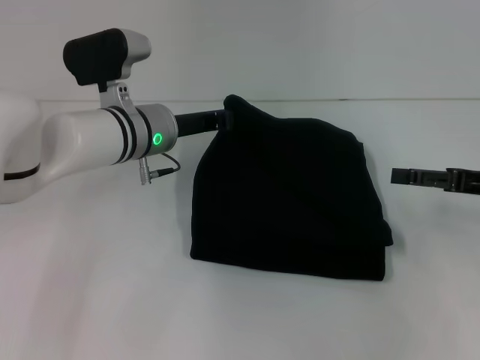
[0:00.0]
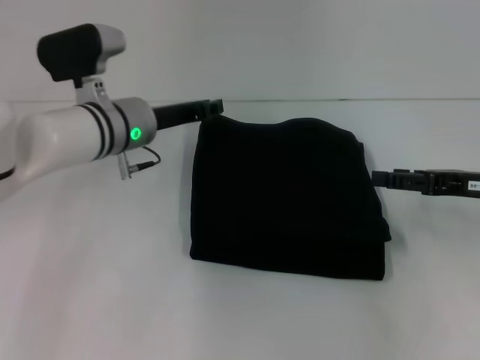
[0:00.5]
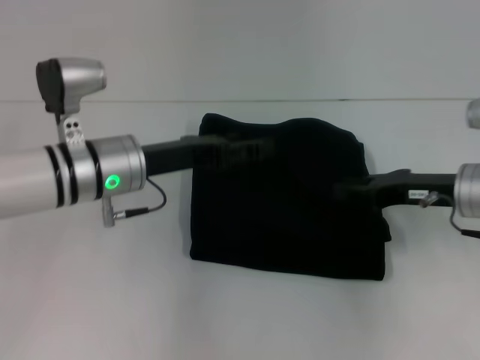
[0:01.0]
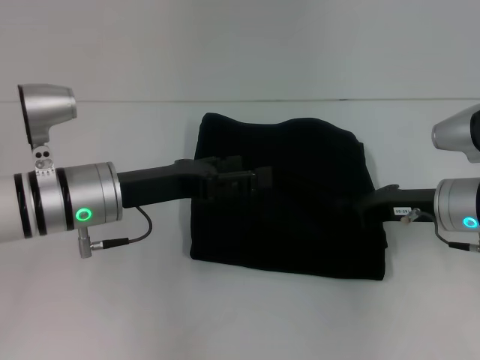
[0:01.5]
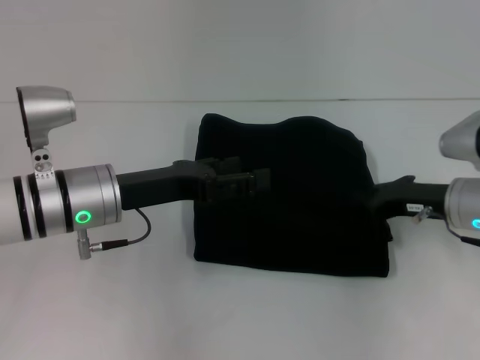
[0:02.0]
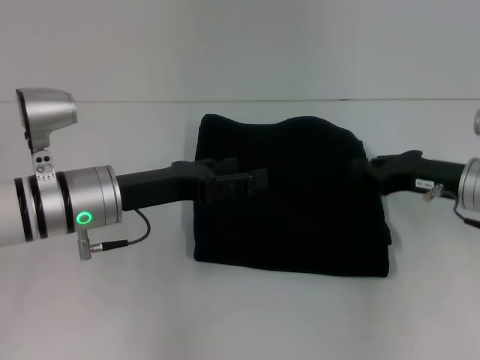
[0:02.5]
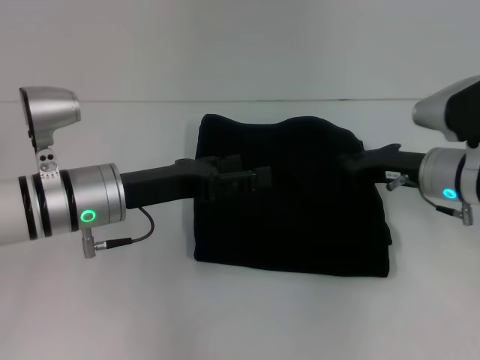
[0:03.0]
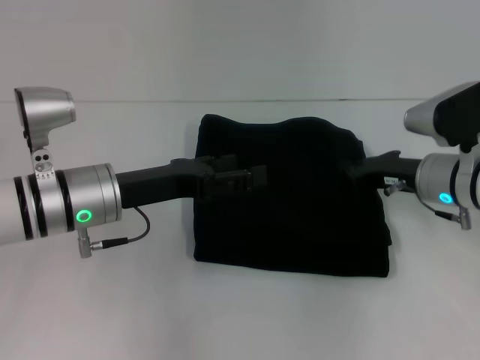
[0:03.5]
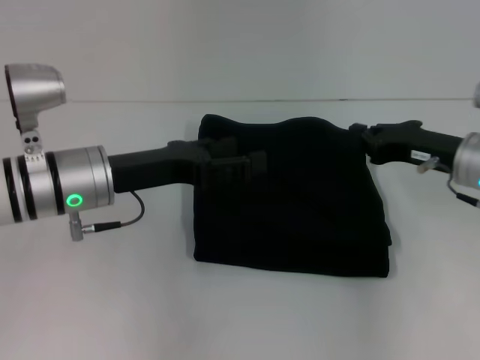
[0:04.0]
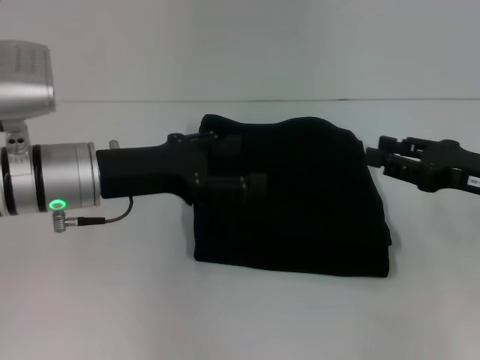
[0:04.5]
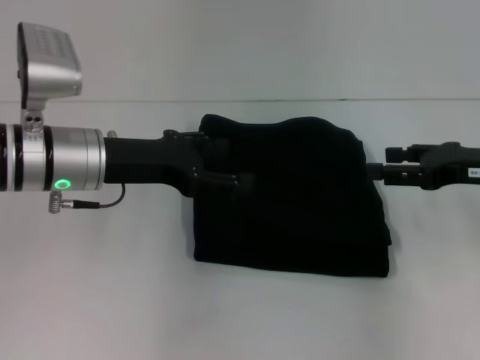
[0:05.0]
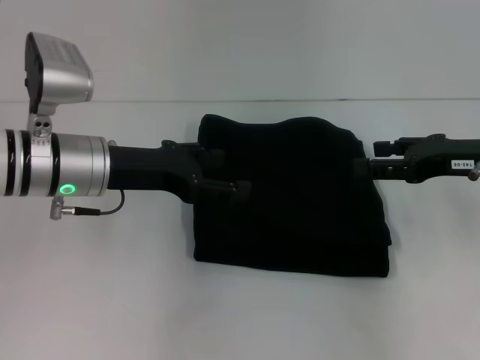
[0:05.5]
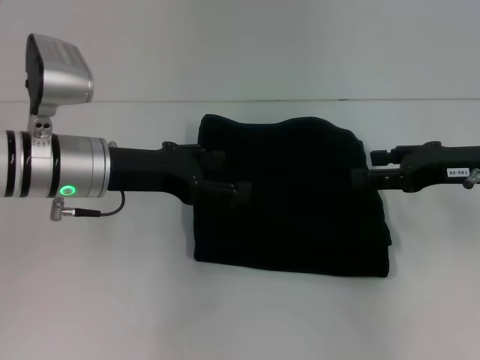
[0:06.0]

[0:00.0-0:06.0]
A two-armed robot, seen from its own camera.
0:00.0 to 0:02.0: The left gripper heads backward and to the left, covering about 10 cm, and opens its fingers; the right gripper travels to the left by some 5 cm, and closes.
0:02.0 to 0:04.0: The grippers move only a little.
0:04.0 to 0:06.0: The right gripper opens its fingers.

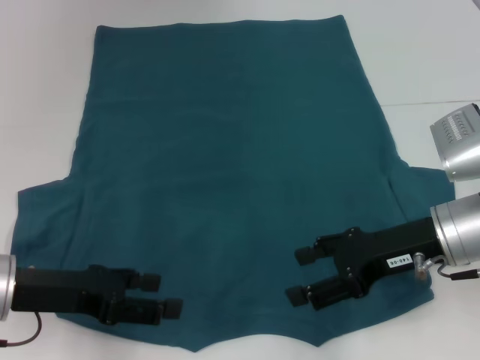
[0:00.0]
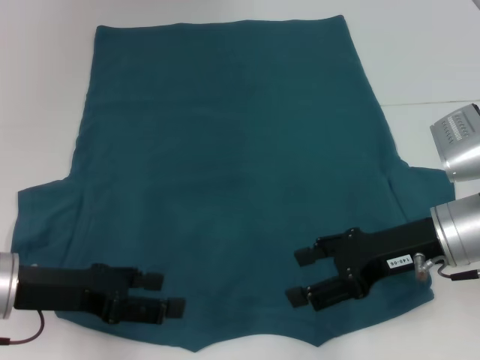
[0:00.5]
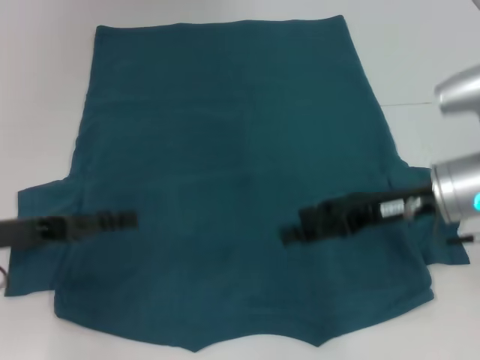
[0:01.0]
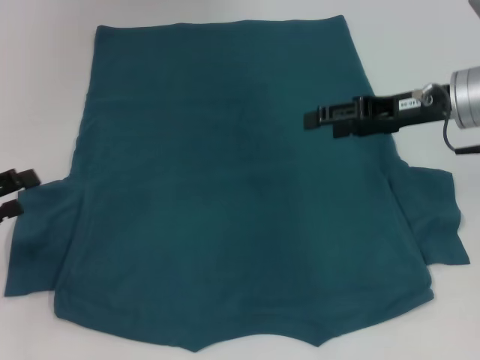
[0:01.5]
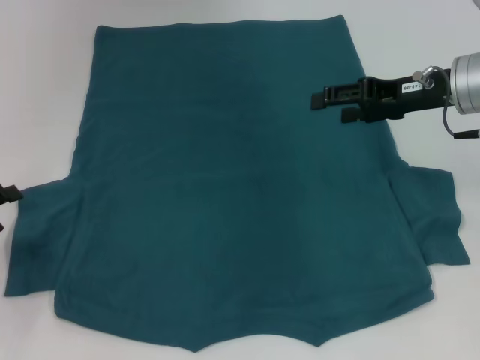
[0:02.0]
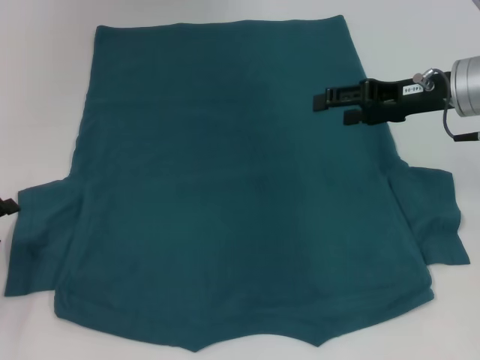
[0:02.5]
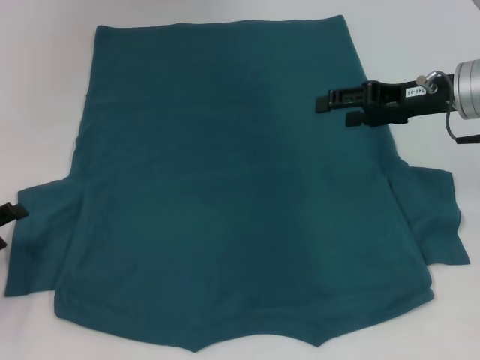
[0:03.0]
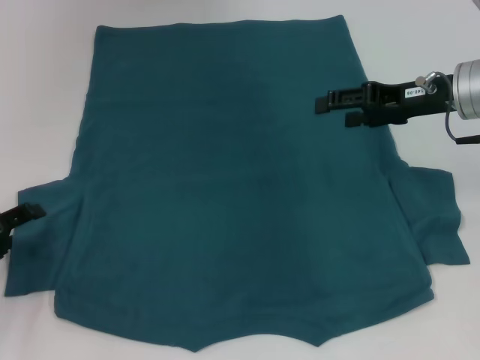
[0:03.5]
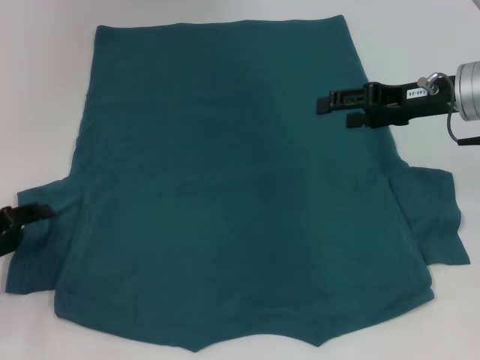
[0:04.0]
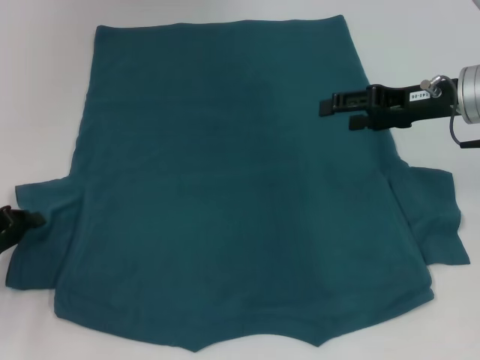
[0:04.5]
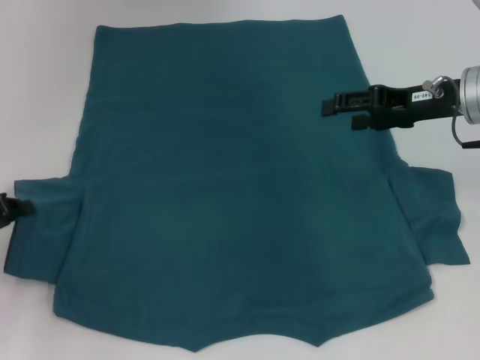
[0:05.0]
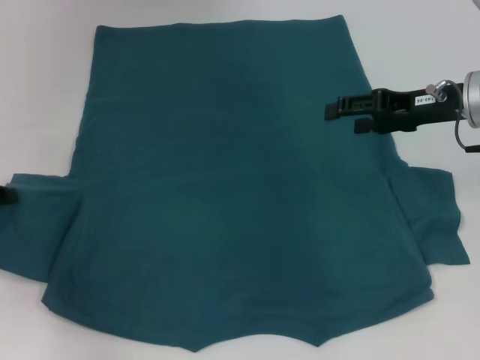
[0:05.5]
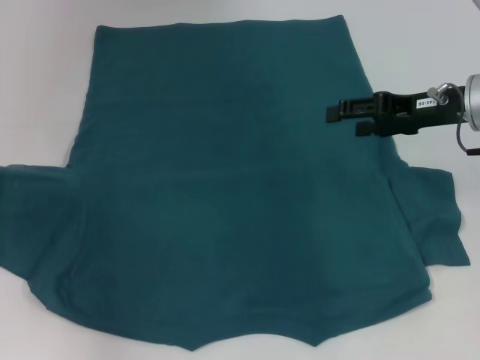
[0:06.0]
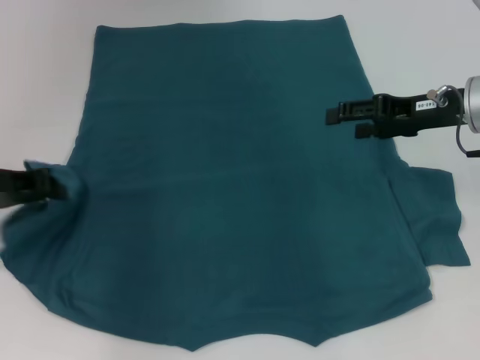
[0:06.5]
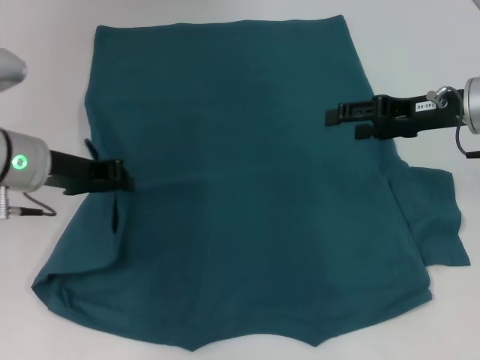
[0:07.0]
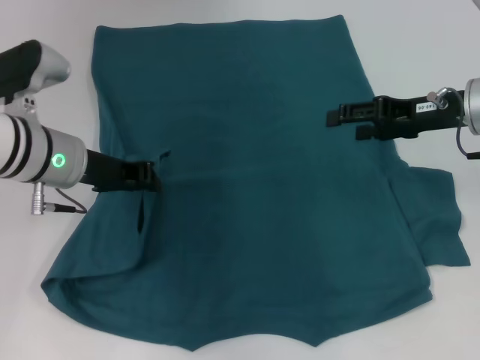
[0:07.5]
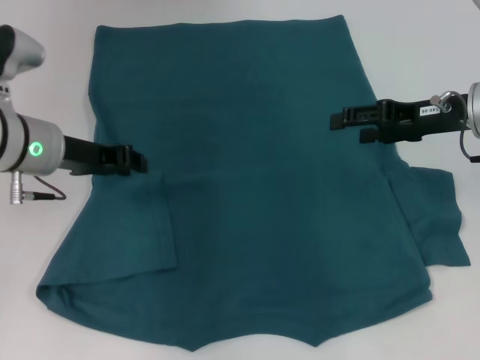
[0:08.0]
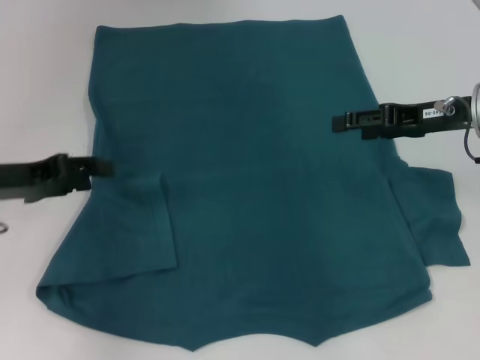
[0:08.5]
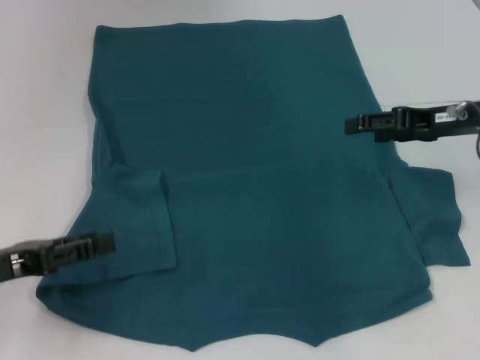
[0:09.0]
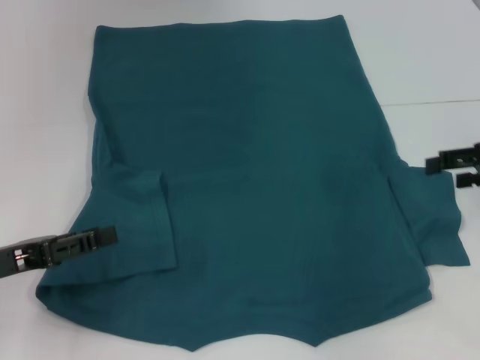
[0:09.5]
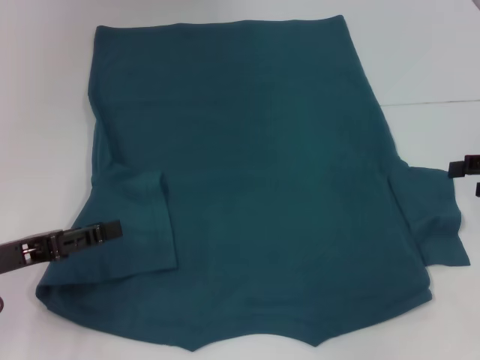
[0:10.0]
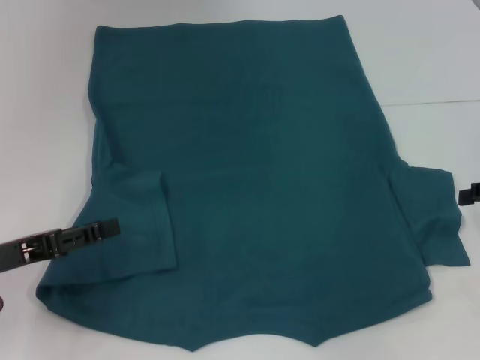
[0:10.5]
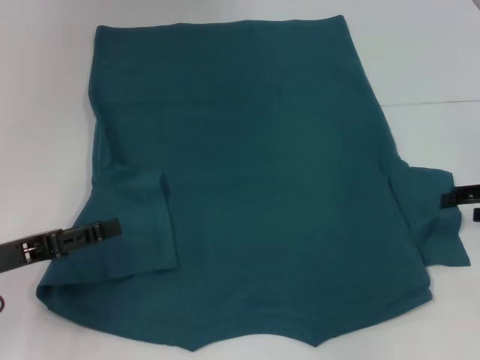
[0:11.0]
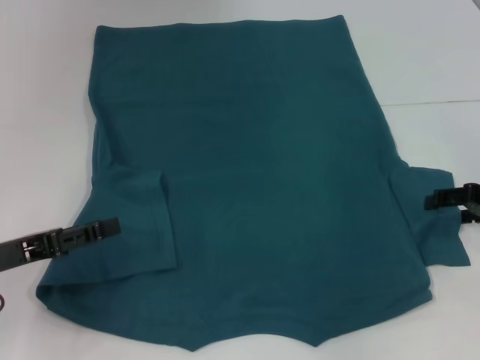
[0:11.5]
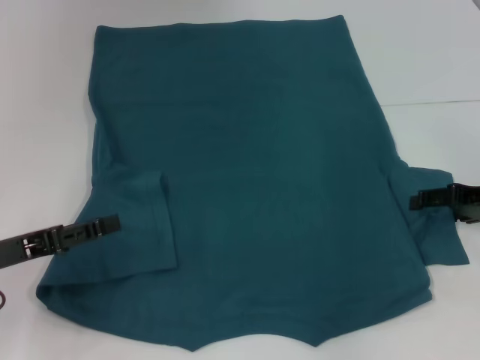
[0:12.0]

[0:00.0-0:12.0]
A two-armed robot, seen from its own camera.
Step, 0:00.0 to 0:08.0: Fold the bottom left sleeve with your left hand.
0:00.0 to 0:02.0: The left gripper travels to the left by some 10 cm, while the right gripper goes some 10 cm forward and upward.
0:02.0 to 0:04.0: The grippers make only small movements.
0:04.0 to 0:06.0: The left gripper shifts some 10 cm upward and forward, and closes up.
0:06.0 to 0:08.0: The left gripper shifts roughly 15 cm to the right.
0:08.0 to 0:10.0: The right gripper moves to the right and backward, approximately 15 cm, while the left gripper heads backward, to the left and downward, covering about 15 cm, and opens up.
0:10.0 to 0:12.0: The right gripper travels downward by about 5 cm.

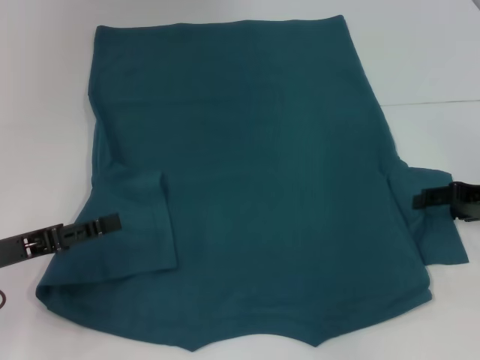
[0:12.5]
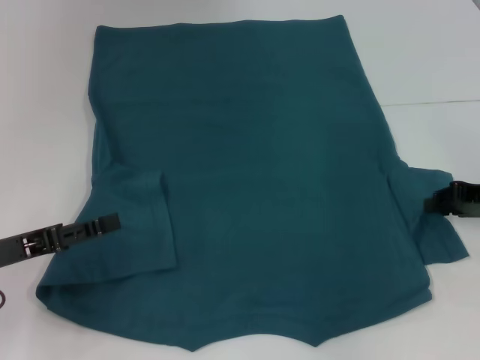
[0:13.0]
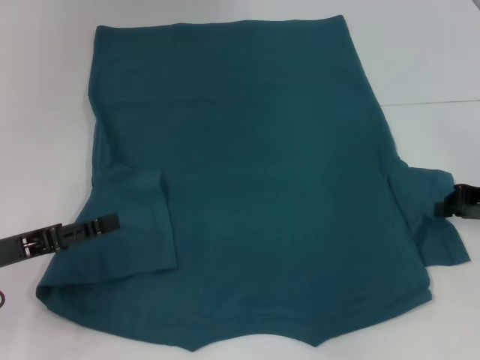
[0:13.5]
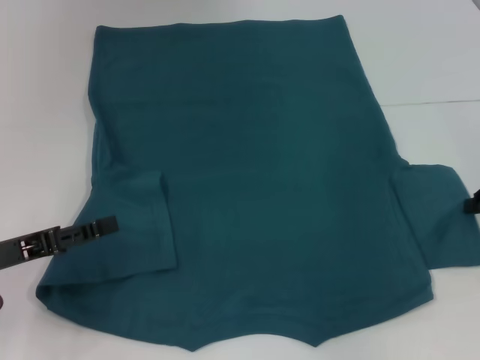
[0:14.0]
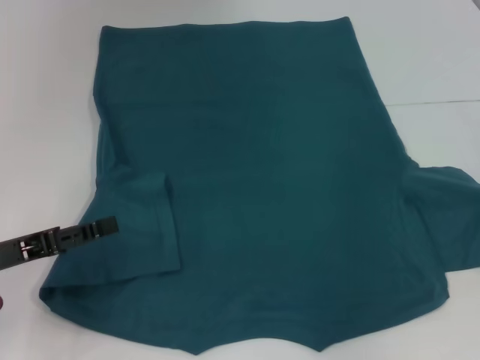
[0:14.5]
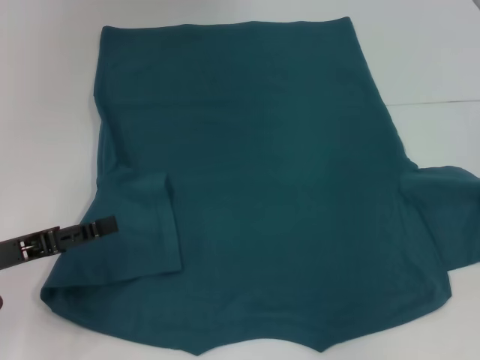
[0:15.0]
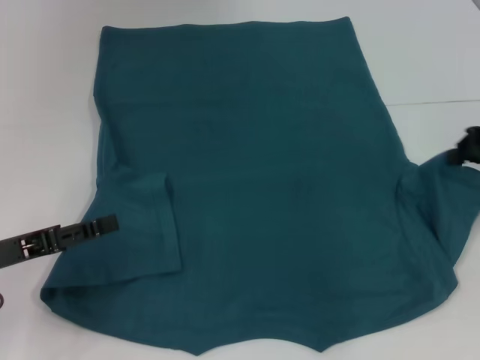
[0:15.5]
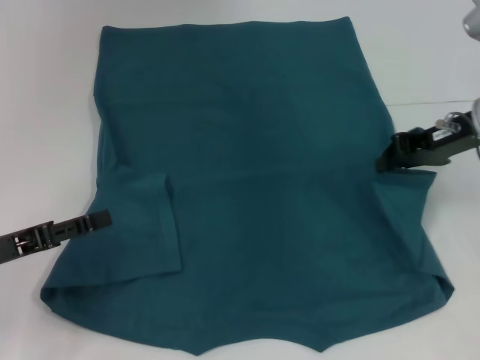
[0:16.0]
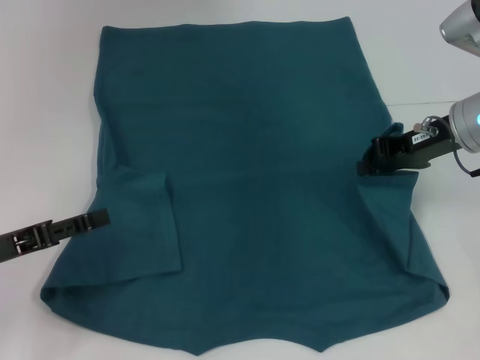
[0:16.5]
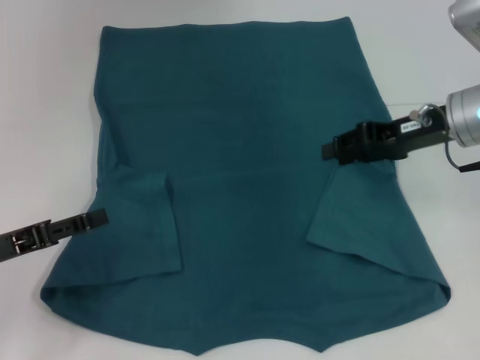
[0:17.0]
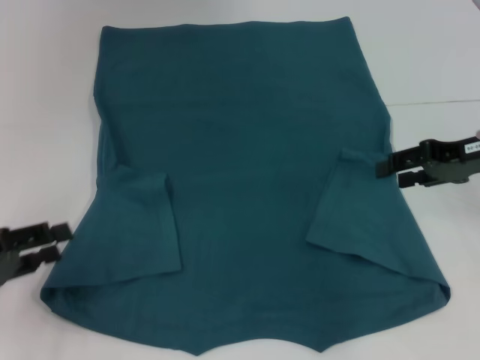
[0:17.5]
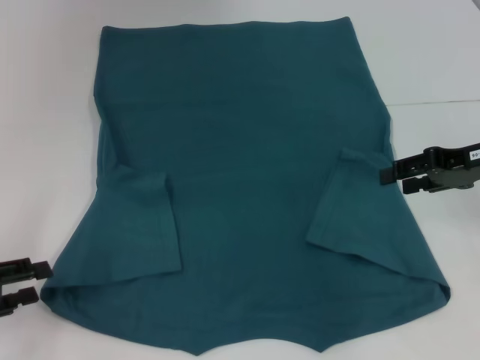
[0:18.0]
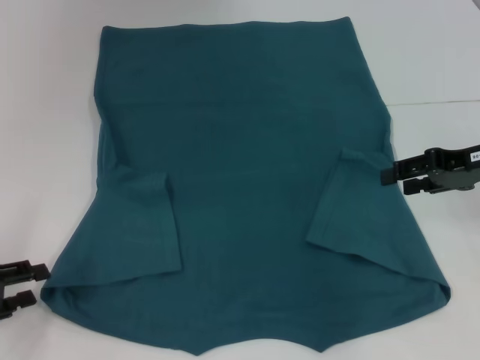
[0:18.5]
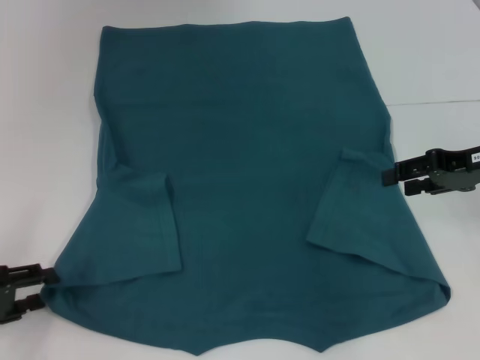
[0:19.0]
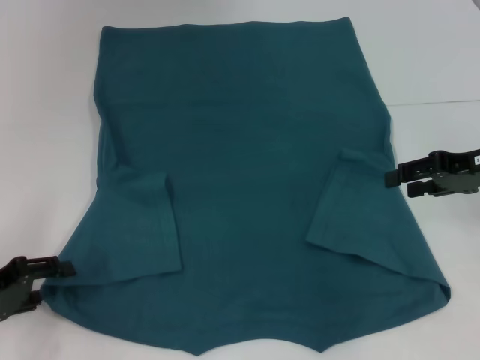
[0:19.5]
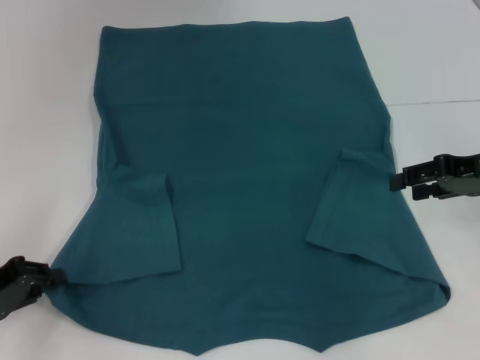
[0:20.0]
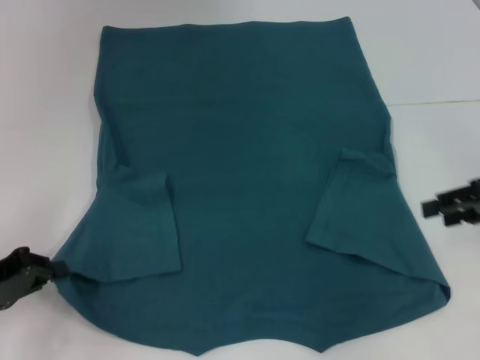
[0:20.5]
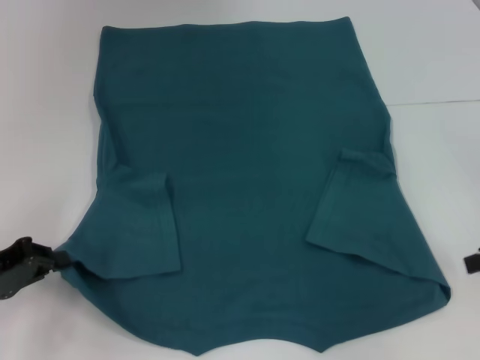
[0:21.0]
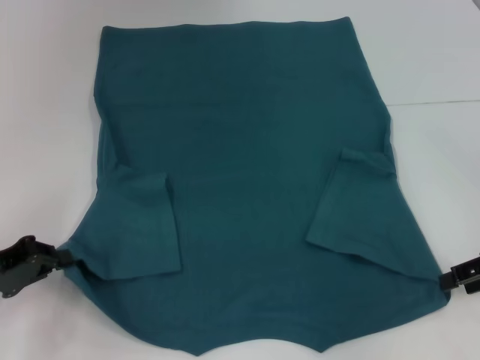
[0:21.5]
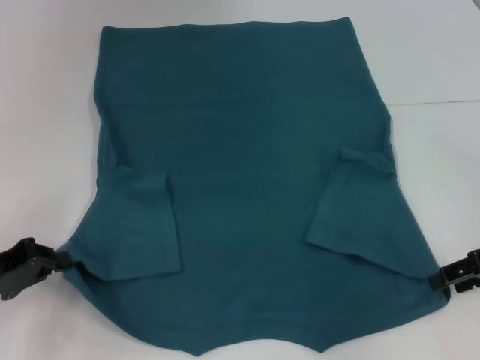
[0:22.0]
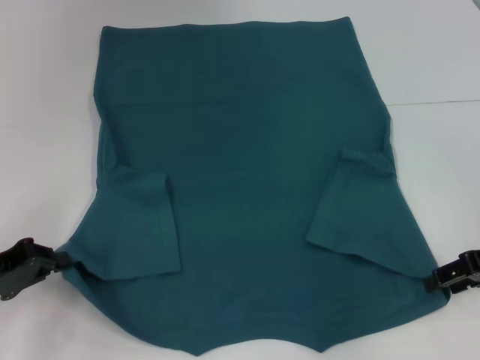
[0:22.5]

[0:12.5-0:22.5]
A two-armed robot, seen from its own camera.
Step, 0:12.5 to 0:17.0: Fold the bottom right sleeve to the right.
Step, 0:17.5 to 0:20.0: Grab the bottom left corner with your left hand.
0:12.5 to 0:14.5: The right gripper moves some 5 cm, and closes its fingers.
0:14.5 to 0:16.5: The right gripper travels to the left and forward by some 15 cm.
0:16.5 to 0:18.5: The left gripper shifts by some 5 cm; the right gripper shifts some 5 cm to the right, and opens up.
0:18.5 to 0:20.5: The left gripper closes its fingers.
0:20.5 to 0:22.5: The grippers stay close to where they were, moving slightly.
